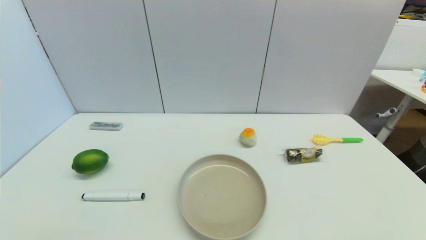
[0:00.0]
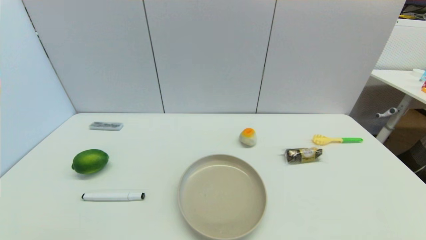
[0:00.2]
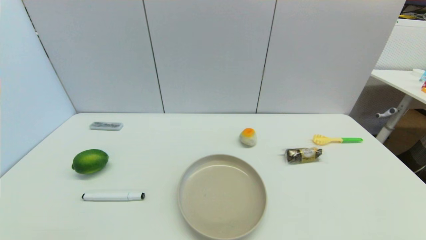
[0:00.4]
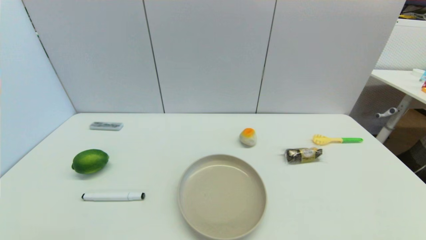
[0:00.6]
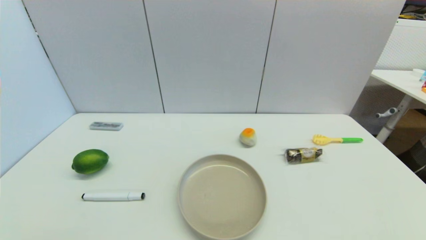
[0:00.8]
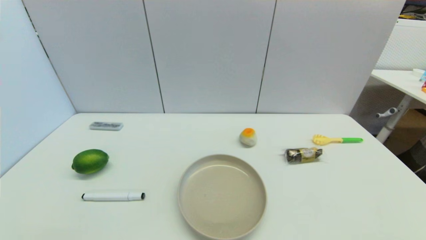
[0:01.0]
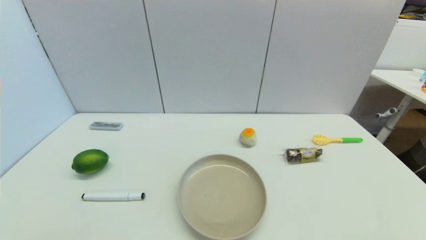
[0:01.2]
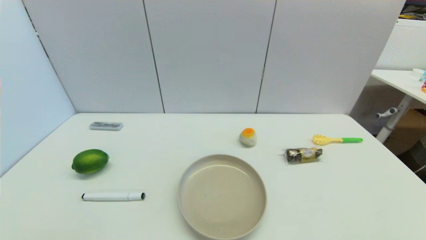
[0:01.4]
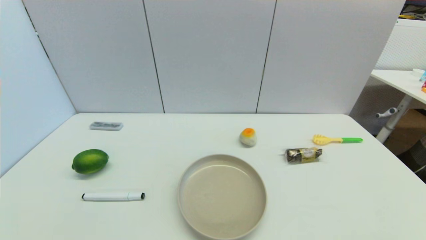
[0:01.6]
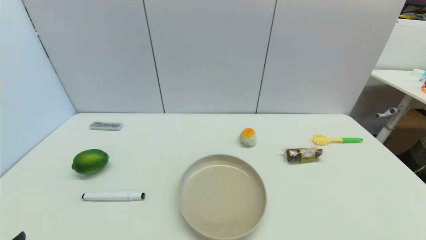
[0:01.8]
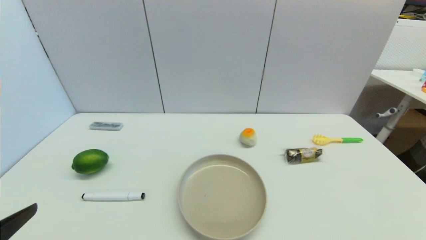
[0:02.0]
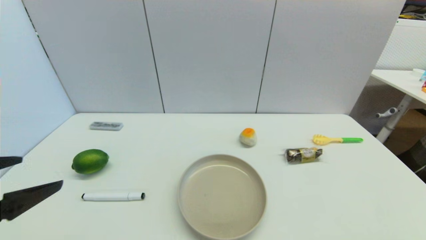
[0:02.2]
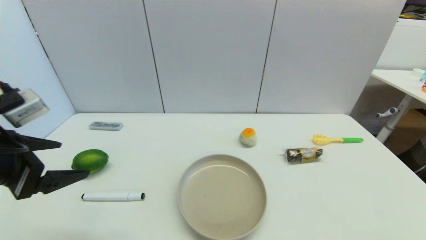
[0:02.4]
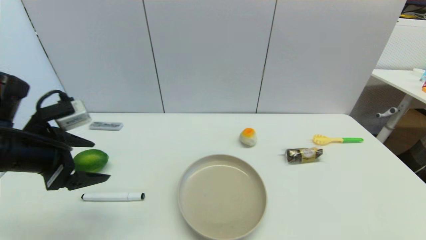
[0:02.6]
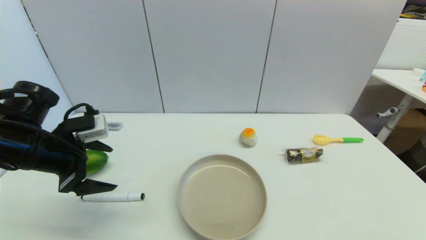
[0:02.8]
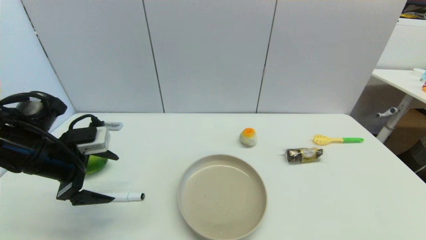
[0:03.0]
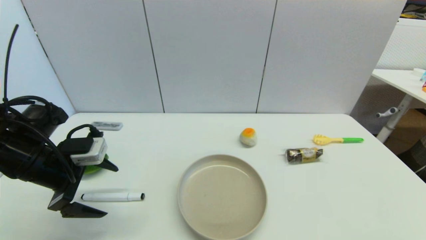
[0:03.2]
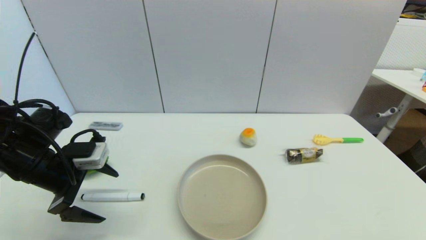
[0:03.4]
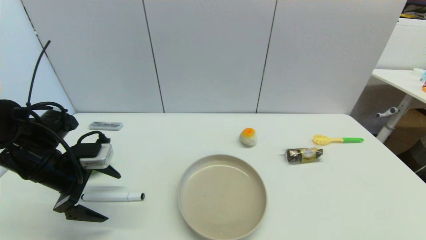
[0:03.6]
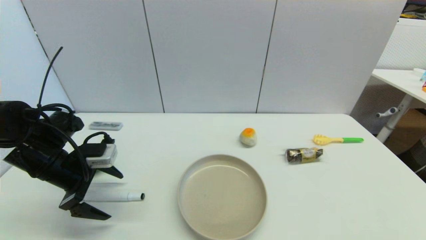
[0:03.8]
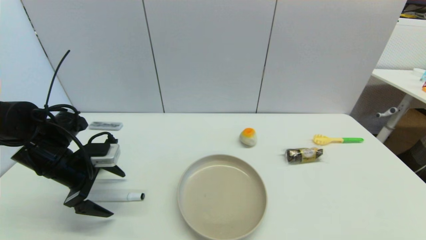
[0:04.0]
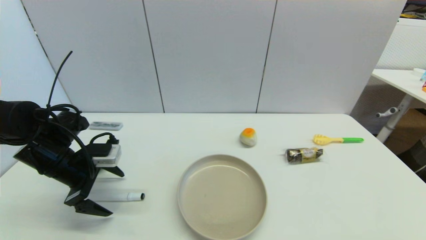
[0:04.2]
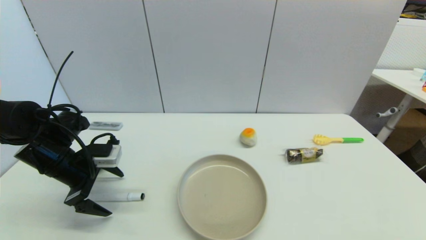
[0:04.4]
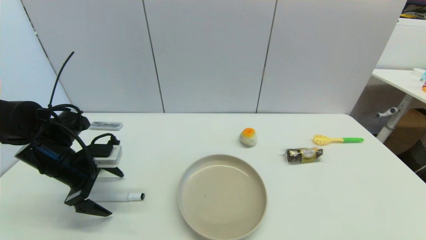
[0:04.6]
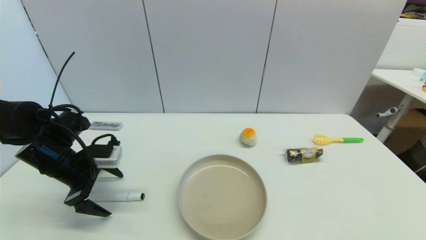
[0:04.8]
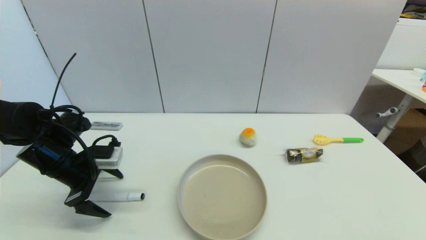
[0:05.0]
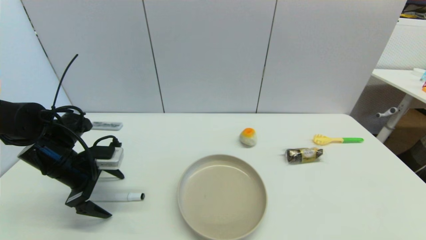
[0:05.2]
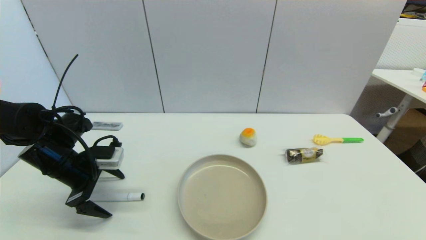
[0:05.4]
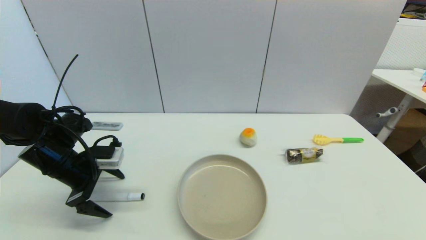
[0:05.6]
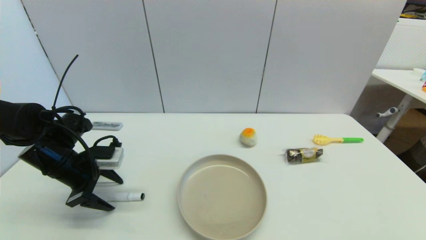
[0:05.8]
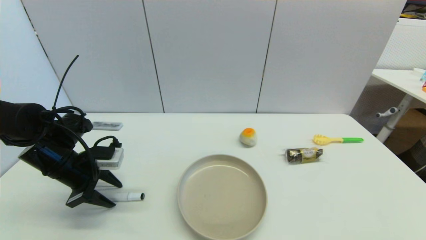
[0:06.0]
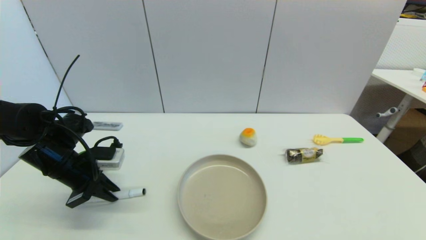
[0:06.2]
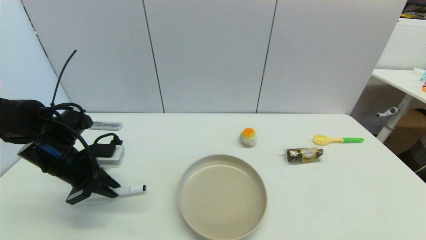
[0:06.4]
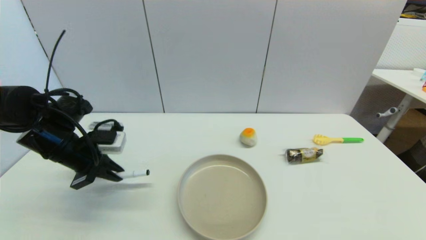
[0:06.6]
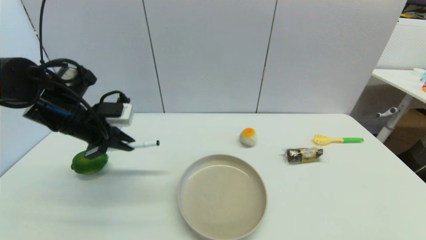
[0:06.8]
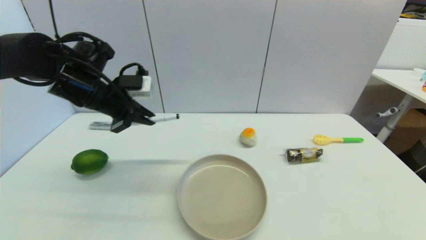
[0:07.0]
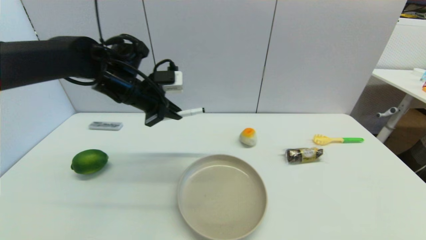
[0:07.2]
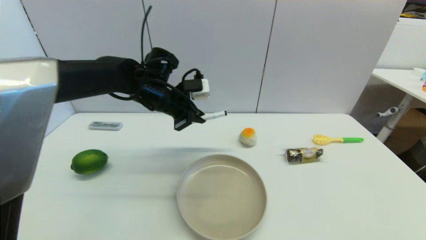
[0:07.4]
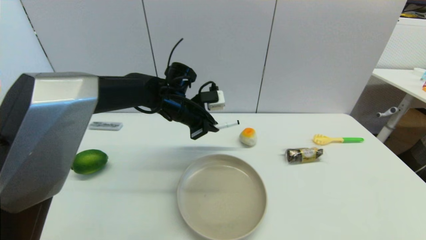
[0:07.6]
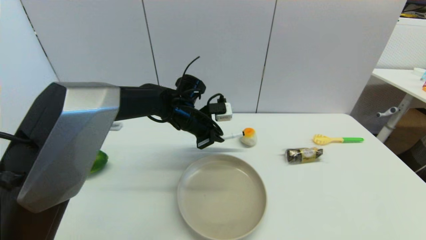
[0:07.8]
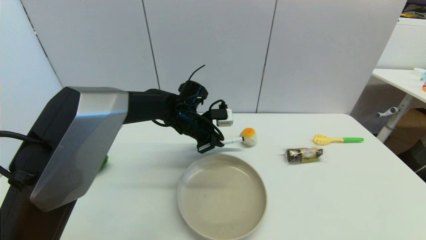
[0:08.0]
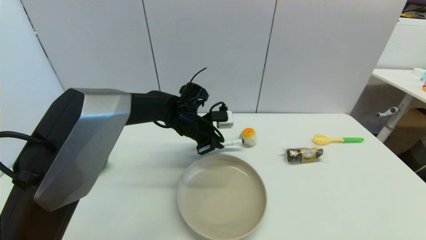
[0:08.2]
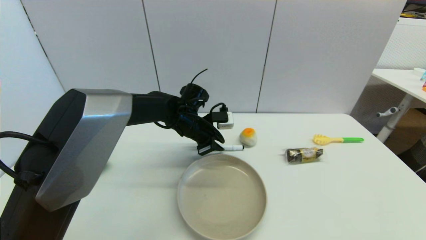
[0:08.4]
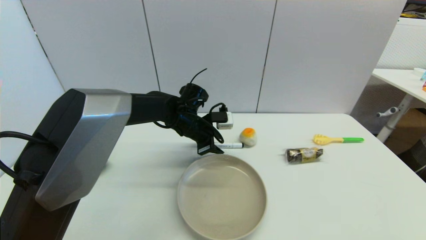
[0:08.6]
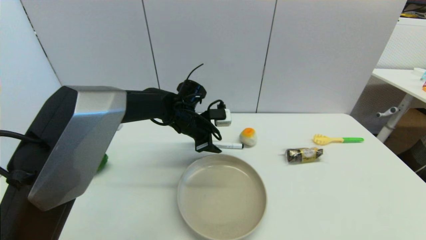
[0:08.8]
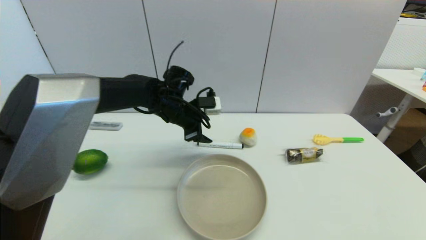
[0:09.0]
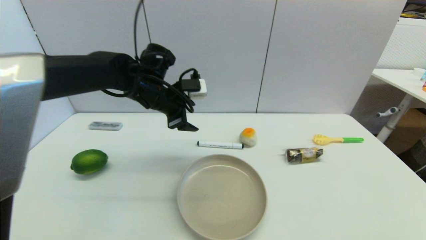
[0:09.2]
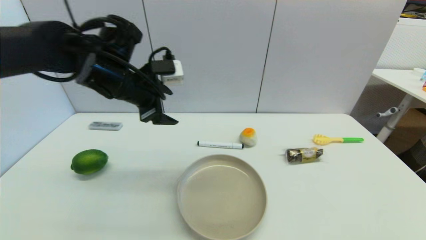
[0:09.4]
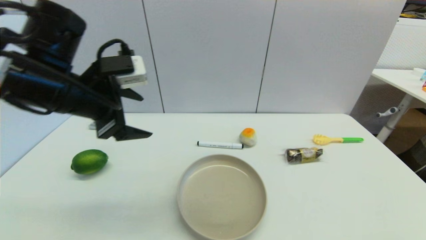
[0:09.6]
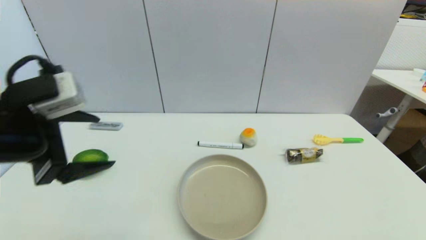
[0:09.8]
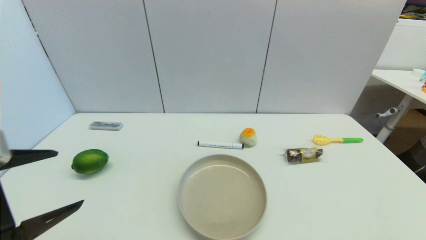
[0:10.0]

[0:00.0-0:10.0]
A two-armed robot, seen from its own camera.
Task of the whole recording: put the black marker in the designated position.
Step, 0:01.8 to 0:06.2: Grasp the Marker pen with left gripper.
Step, 0:06.4 to 0:08.8: Place the Marker pen on the table with left gripper.
0:00.0 to 0:01.4: Both grippers stay about where they are.
0:01.4 to 0:02.8: The left gripper shifts approximately 30 cm forward and upward.
0:02.8 to 0:04.2: The left gripper goes some 5 cm downward.
0:04.2 to 0:05.8: The left gripper closes its fingers.
0:05.8 to 0:07.2: The left gripper shifts about 20 cm to the right, upward and forward, and closes its fingers.
0:07.2 to 0:08.6: The left gripper heads downward and to the right, covering roughly 15 cm, and opens.
0:08.6 to 0:10.0: The left gripper shifts some 40 cm backward and to the left, and opens.
